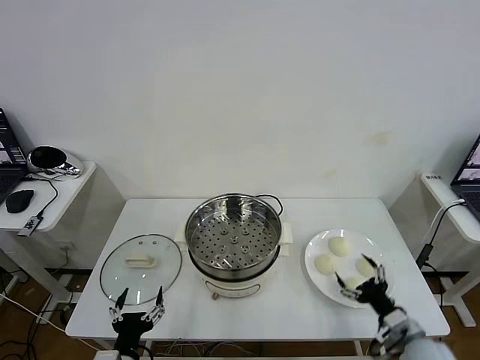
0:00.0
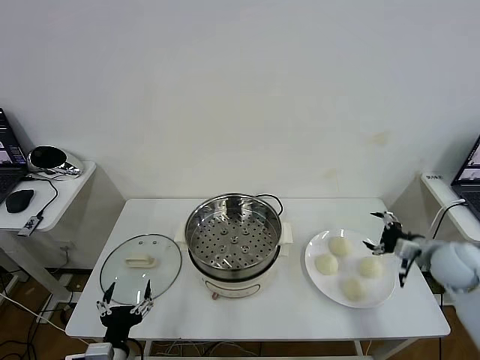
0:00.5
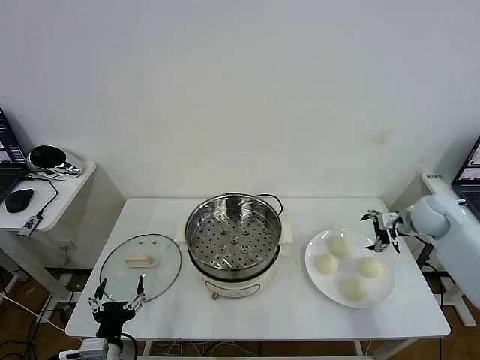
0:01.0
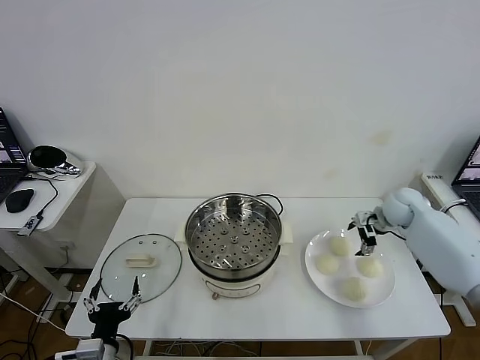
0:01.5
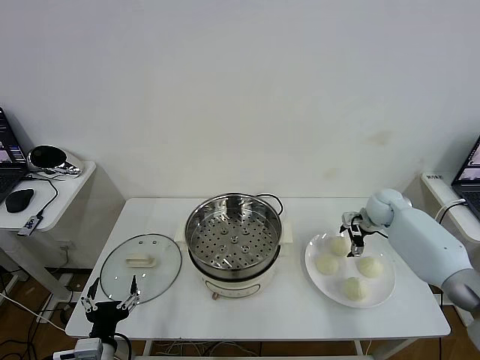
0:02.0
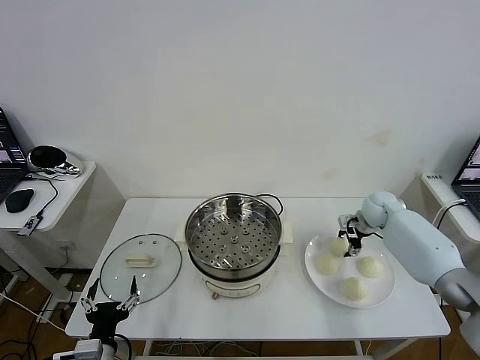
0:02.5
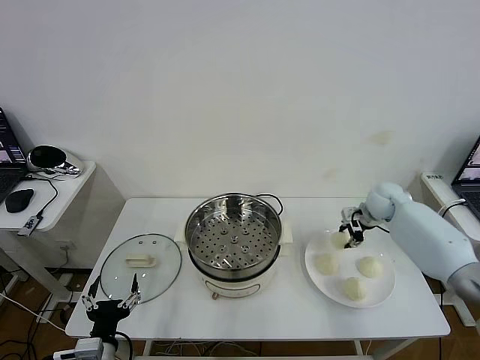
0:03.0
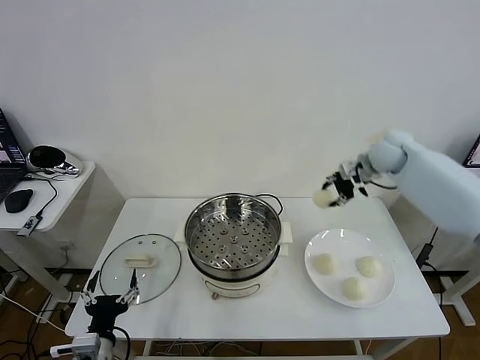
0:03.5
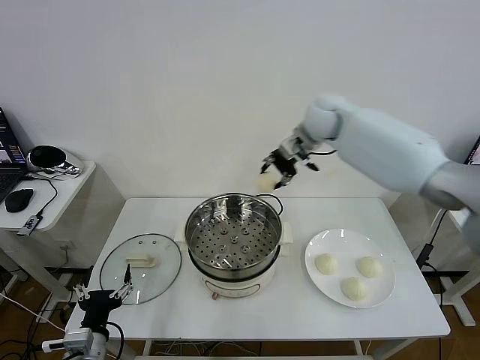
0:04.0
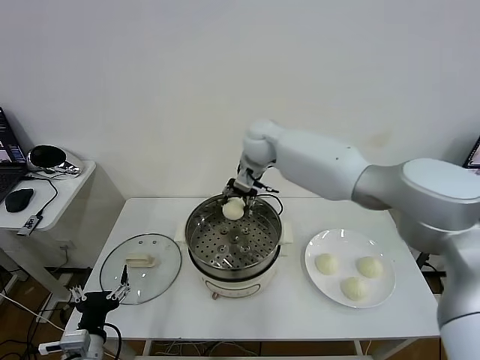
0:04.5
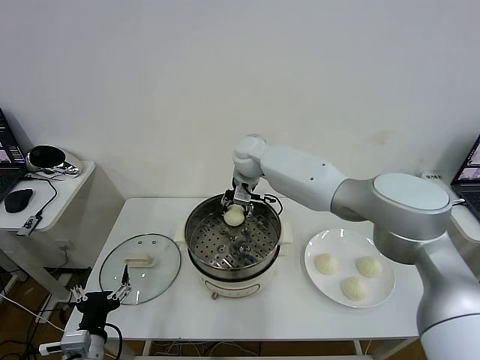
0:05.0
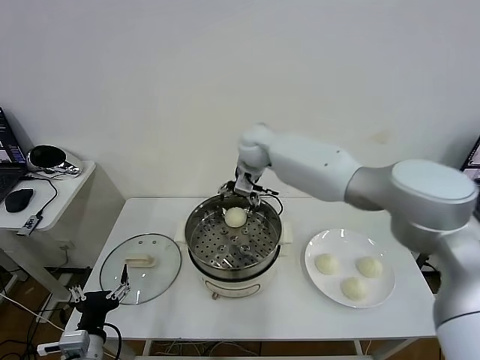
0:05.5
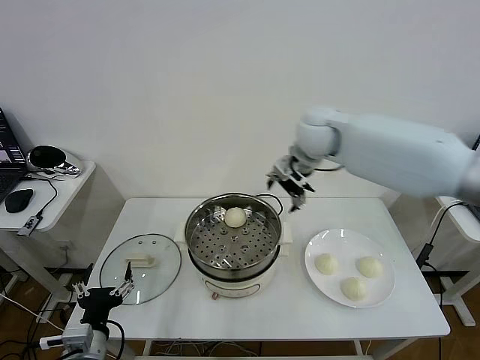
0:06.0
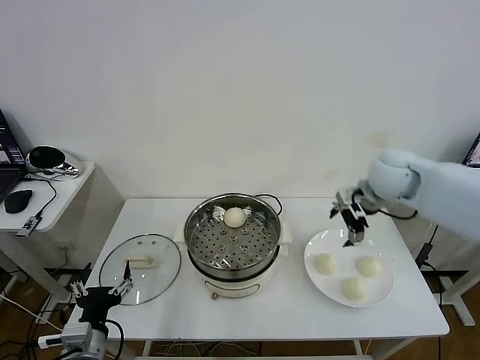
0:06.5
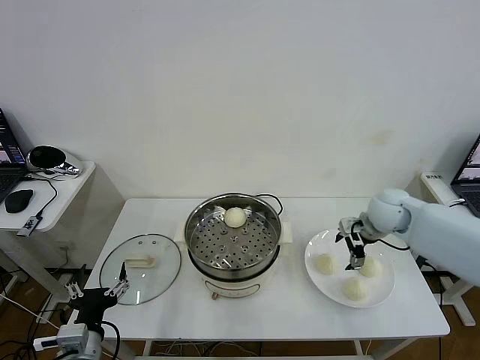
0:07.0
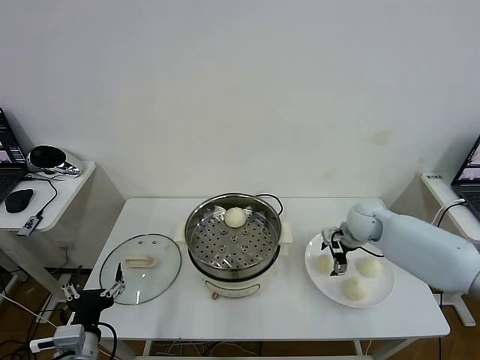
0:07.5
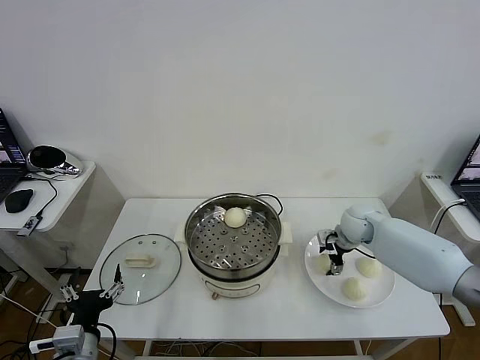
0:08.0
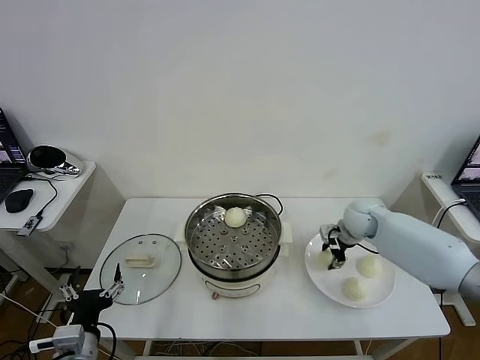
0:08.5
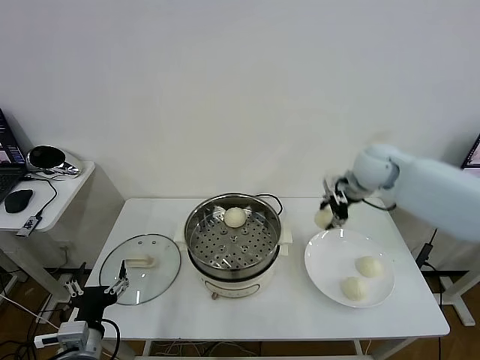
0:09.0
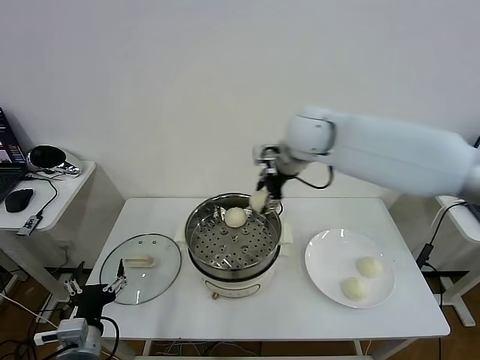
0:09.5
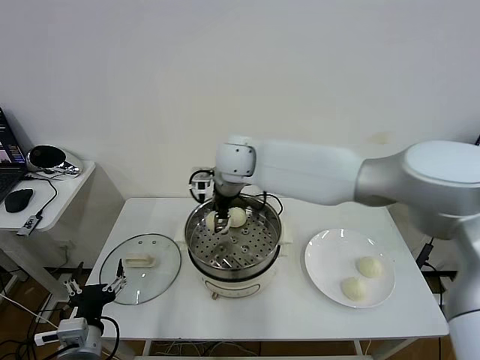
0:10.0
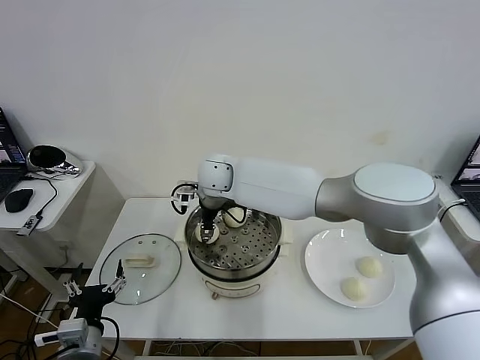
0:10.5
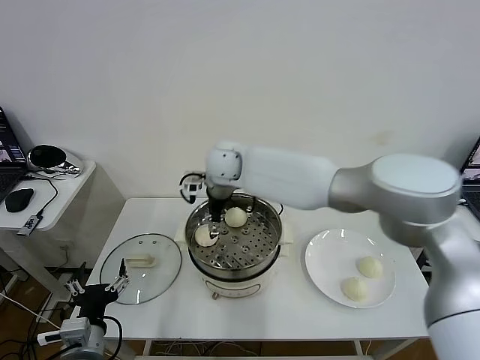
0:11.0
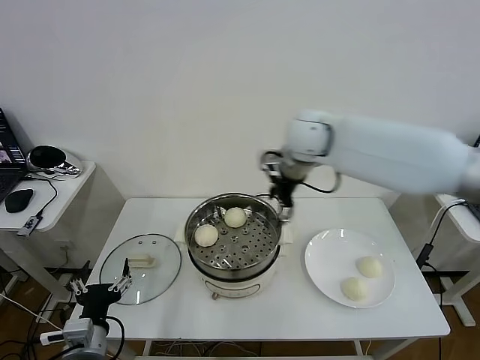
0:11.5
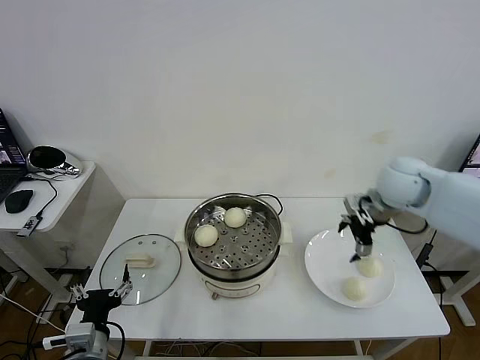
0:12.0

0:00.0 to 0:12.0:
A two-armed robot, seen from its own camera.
Task of the whole recording: take steamed baozi put them in steamer then cover it.
Step, 0:00.0 to 0:02.5: Grasp the baozi in the plate with right gripper.
Step, 0:03.0 to 0:05.0: Place the baozi on the steamer with right gripper.
Step, 0:05.5 to 0:08.0: Grasp the baozi in the plate with right gripper.
Step, 0:08.5 to 0:10.5: Place the baozi on the steamer with right gripper.
0:02.0 to 0:04.0: The right gripper goes some 35 cm to the left and upward, and closes its fingers.
0:04.0 to 0:06.0: The right gripper travels backward by about 10 cm, goes to the left and returns, roughly 10 cm each way, and opens its fingers.
0:06.0 to 0:08.0: The right gripper goes some 25 cm downward and to the right, and closes.
0:08.0 to 0:10.0: The right gripper heads to the left and upward, covering roughly 40 cm, and closes.
0:10.0 to 0:12.0: The right gripper heads to the right, covering some 35 cm, and opens up.

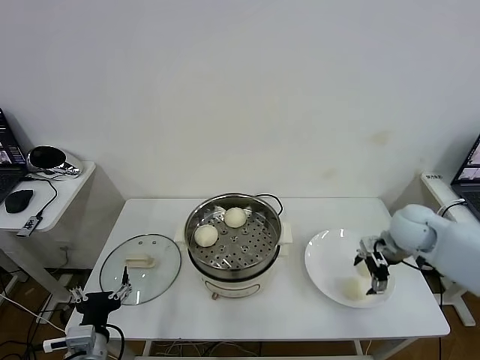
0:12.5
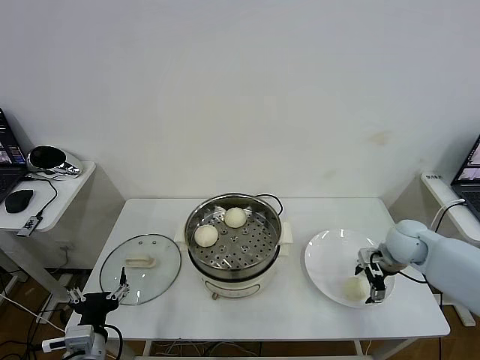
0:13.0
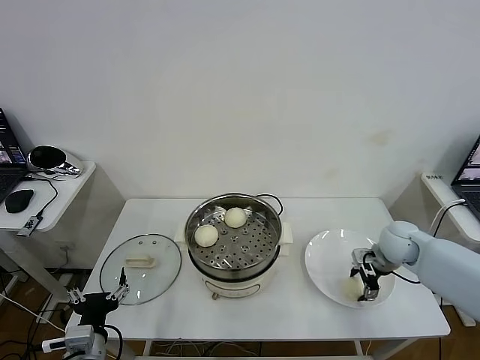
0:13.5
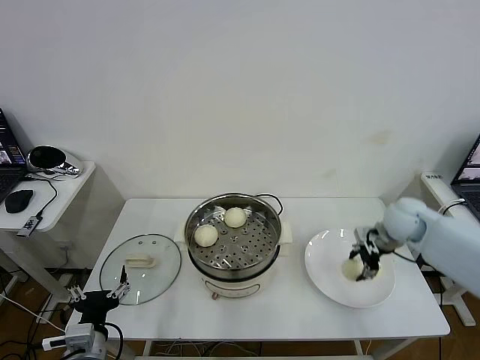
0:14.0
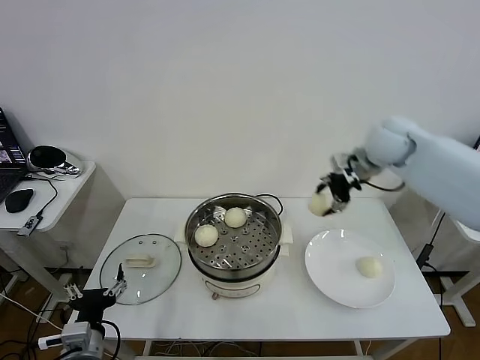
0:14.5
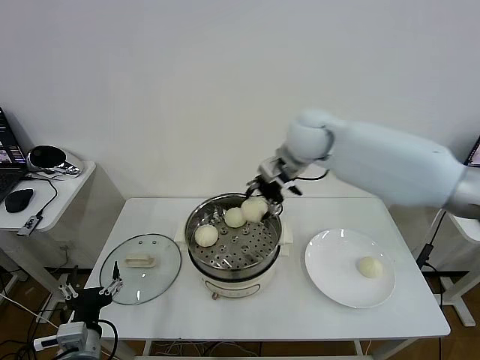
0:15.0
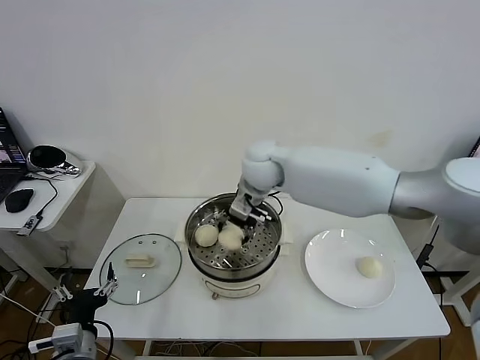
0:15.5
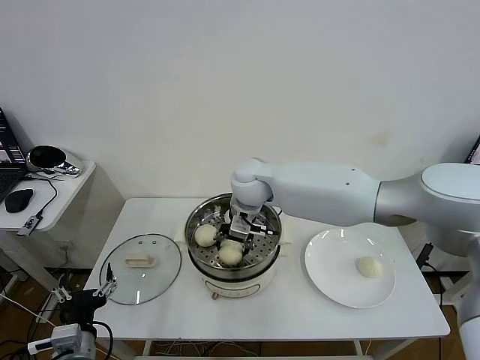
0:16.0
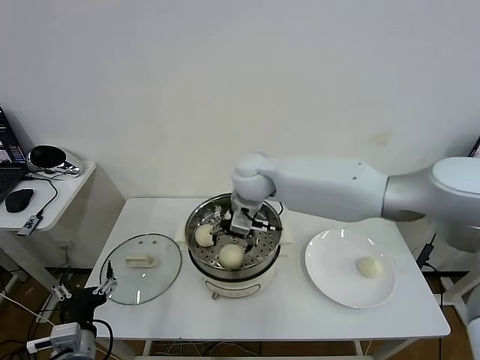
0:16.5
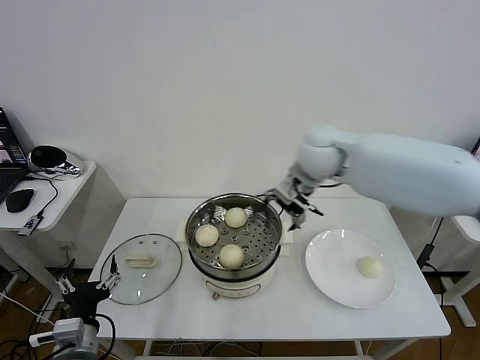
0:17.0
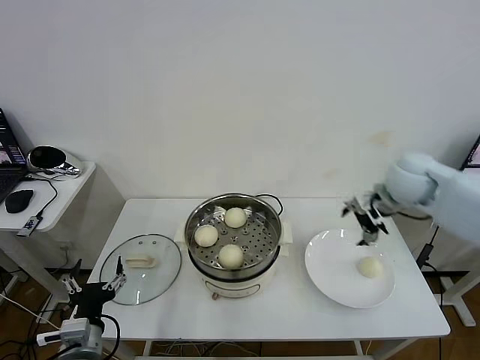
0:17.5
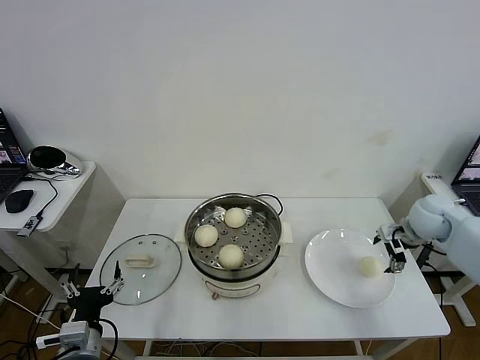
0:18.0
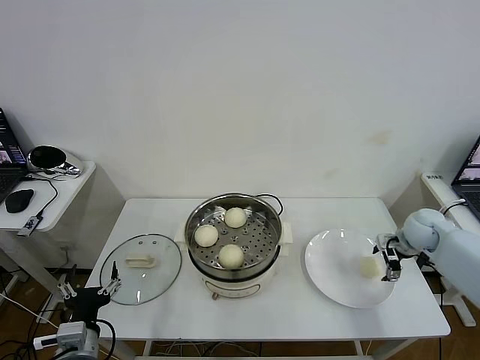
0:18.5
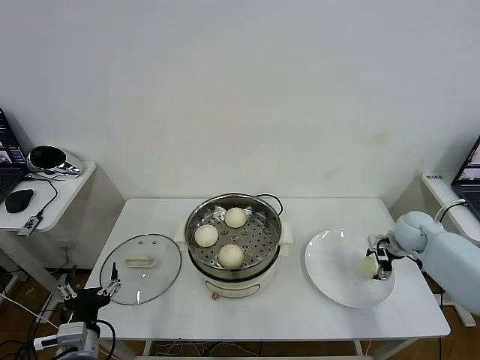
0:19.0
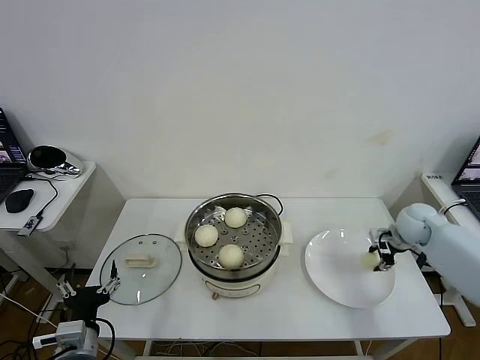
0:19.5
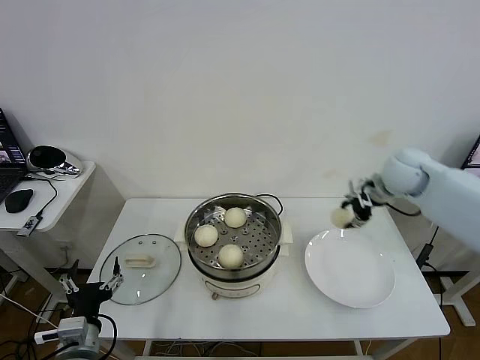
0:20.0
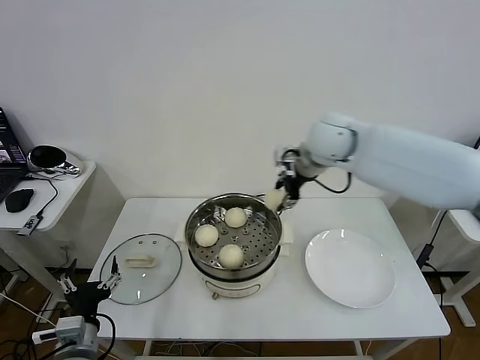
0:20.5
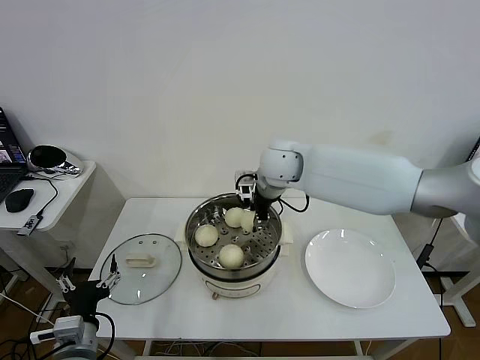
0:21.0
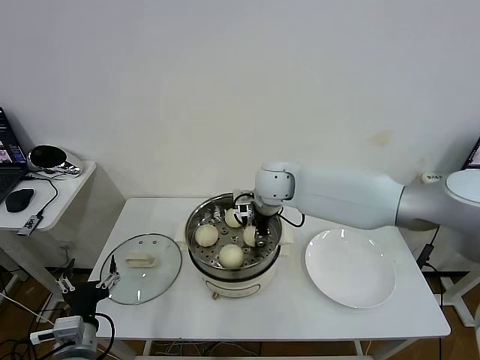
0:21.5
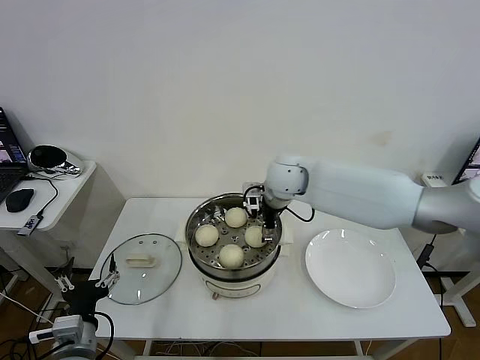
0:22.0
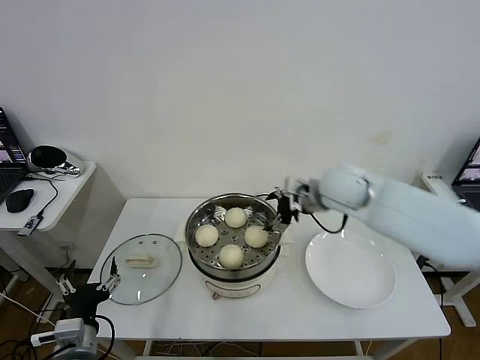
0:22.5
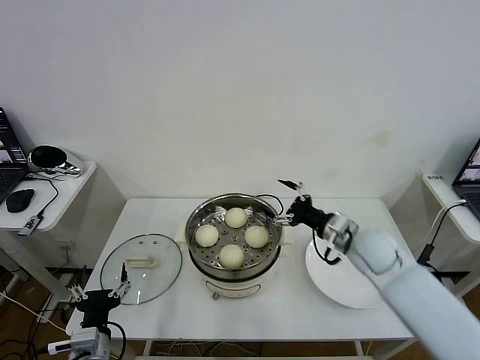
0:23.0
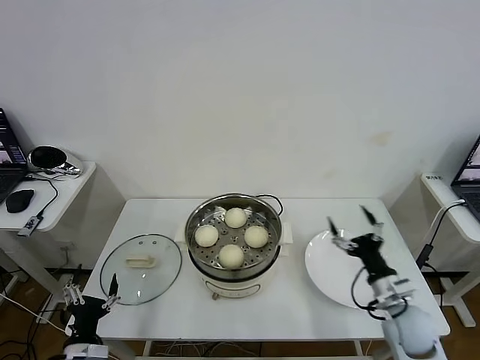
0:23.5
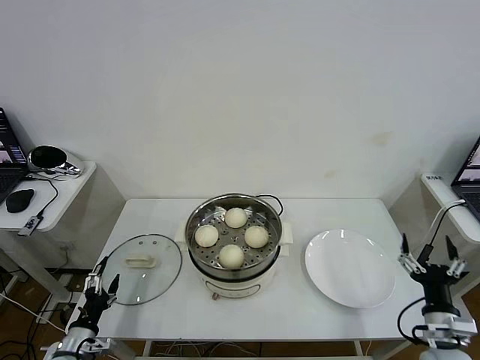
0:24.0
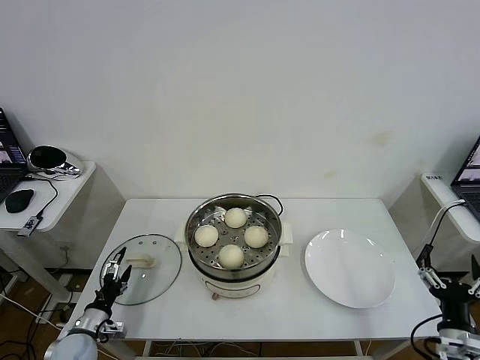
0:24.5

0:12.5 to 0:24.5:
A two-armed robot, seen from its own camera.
Task of the whole recording: take steamed baozi put them in steamer then cover it.
Step, 0:14.0 to 0:16.0: Place the baozi on the steamer with right gripper.
Step, 0:17.0 to 0:19.0: Grasp the baozi in the plate with right gripper.
Step, 0:19.5 to 0:21.5: Place the baozi on the steamer with right gripper.
0:12.5 to 0:14.5: The right gripper travels upward, to the left and forward by some 25 cm, and closes its fingers.
0:14.5 to 0:16.5: The right gripper travels to the left by roughly 25 cm, and opens.
0:16.5 to 0:18.5: The right gripper travels to the right by about 40 cm.
0:18.5 to 0:20.5: The right gripper travels to the left and upward by some 35 cm, and closes.
0:20.5 to 0:22.5: The right gripper travels downward and backward by about 10 cm, reaches some 10 cm to the left, then returns, and opens up.
0:22.5 to 0:24.5: The left gripper goes roughly 20 cm downward, to the left and forward. The right gripper moves backward, downward and to the right, roughly 40 cm.

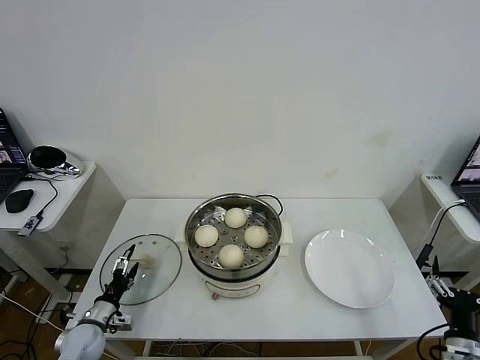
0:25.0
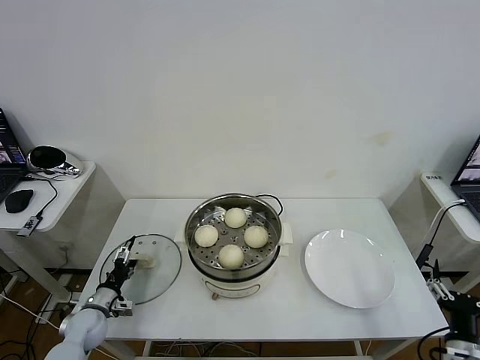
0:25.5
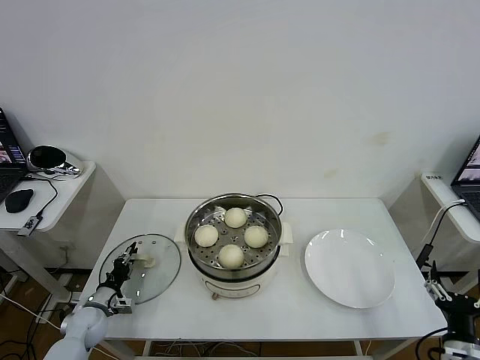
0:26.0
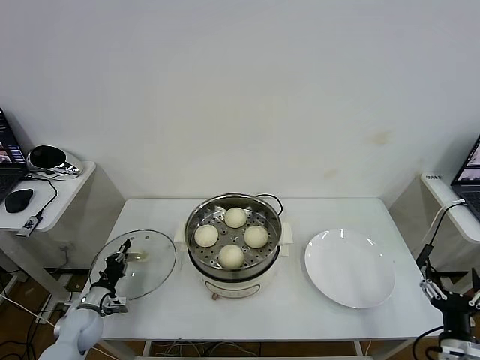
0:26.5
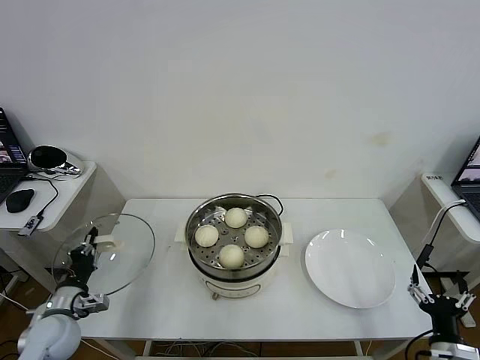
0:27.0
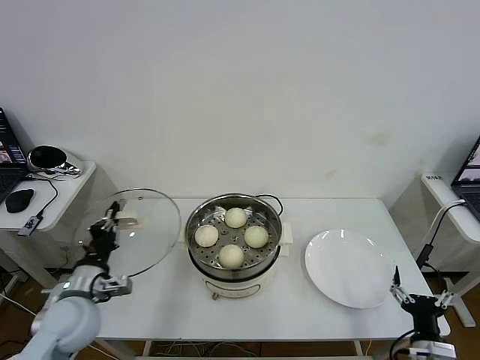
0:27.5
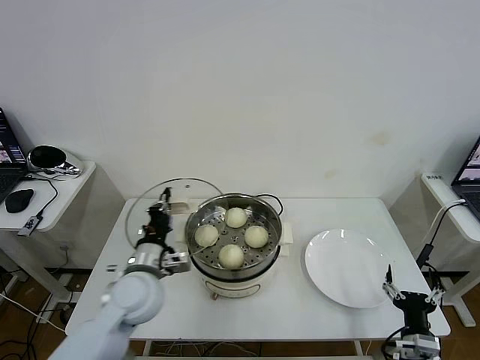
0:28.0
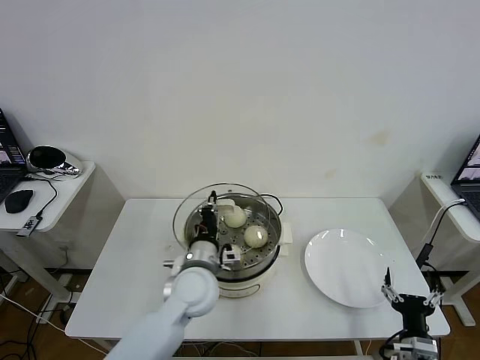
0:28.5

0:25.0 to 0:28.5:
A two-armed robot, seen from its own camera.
Task of the whole recording: take steamed baozi put them in steamer then cover it.
0:25.0 to 0:27.0: The left gripper travels upward by roughly 10 cm, and closes its fingers.
0:27.0 to 0:28.5: The left gripper shifts some 30 cm to the right. Meanwhile the right gripper moves about 5 cm.
